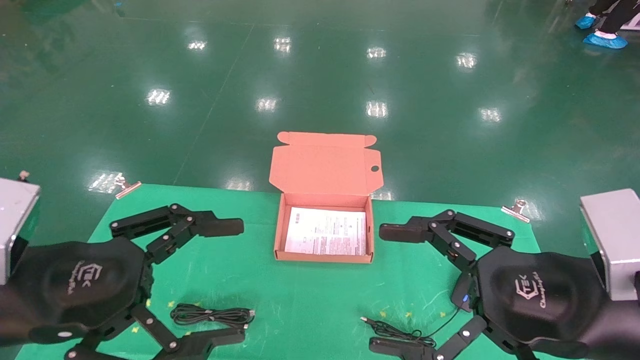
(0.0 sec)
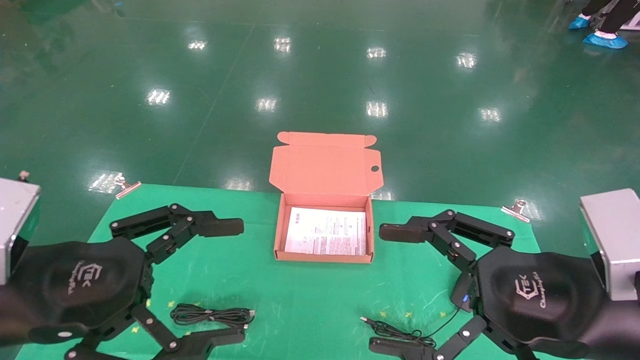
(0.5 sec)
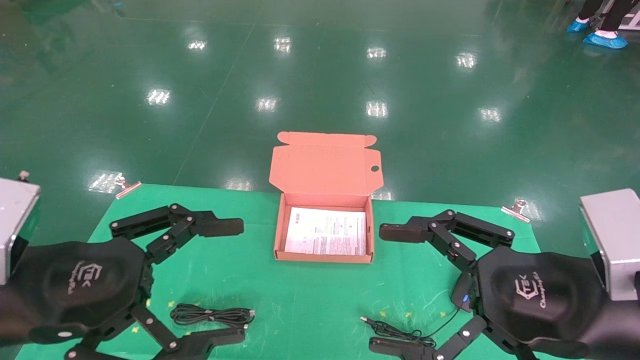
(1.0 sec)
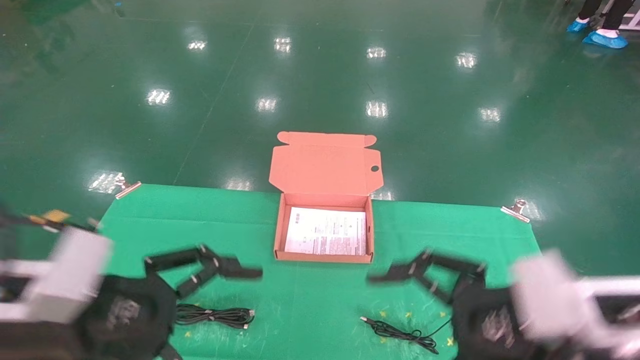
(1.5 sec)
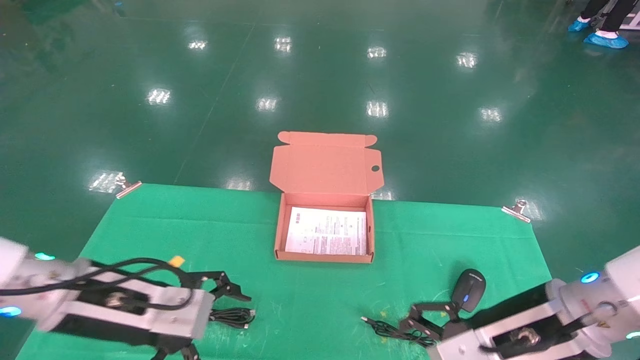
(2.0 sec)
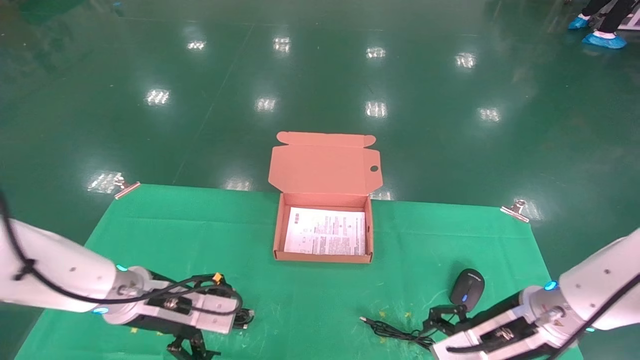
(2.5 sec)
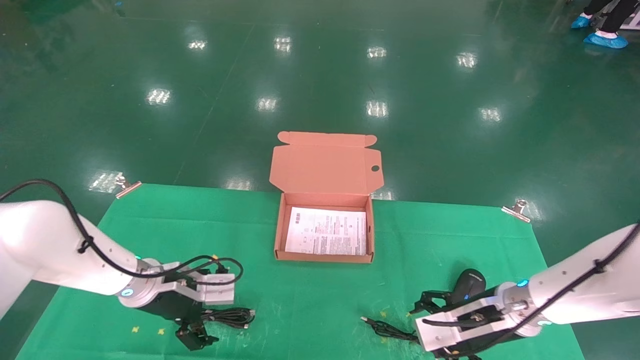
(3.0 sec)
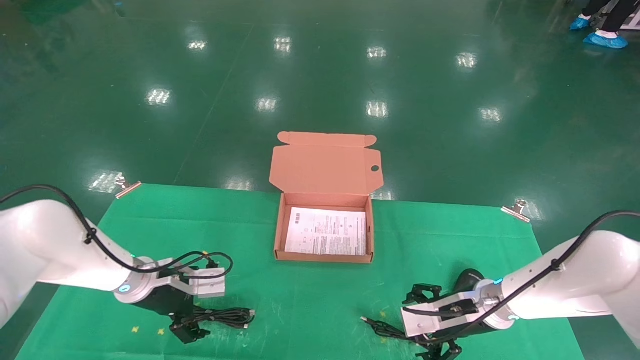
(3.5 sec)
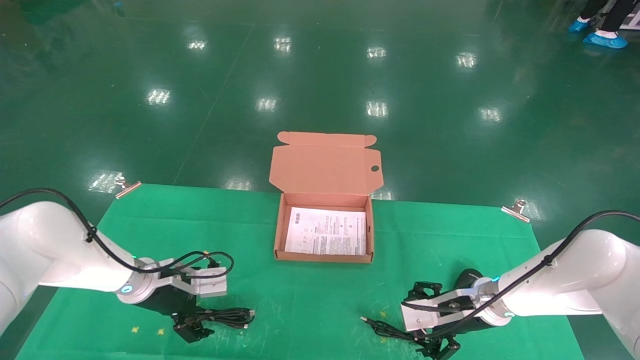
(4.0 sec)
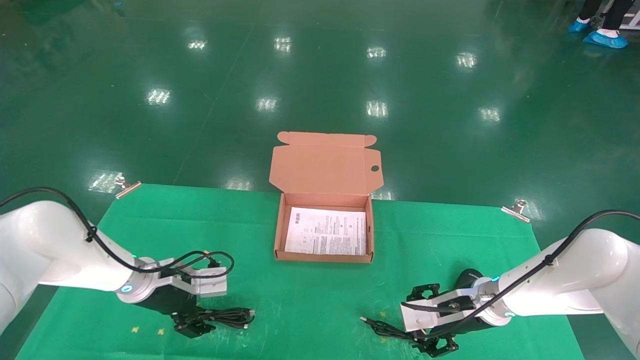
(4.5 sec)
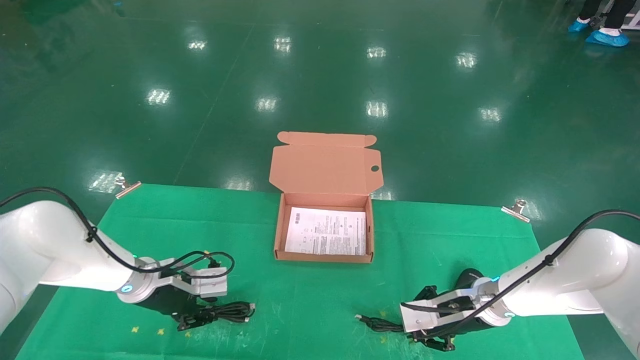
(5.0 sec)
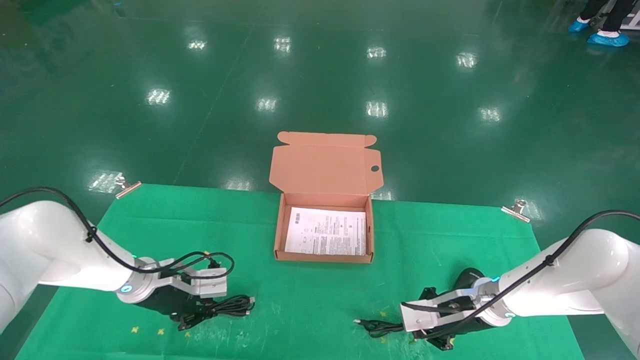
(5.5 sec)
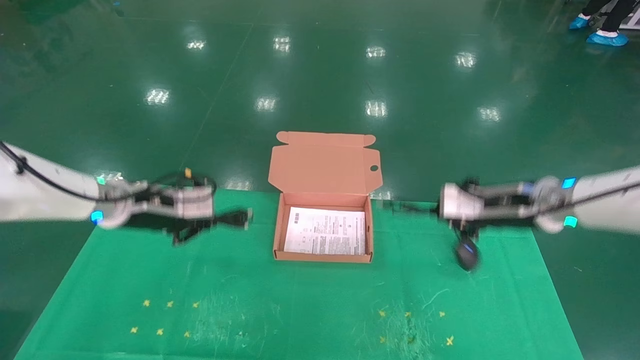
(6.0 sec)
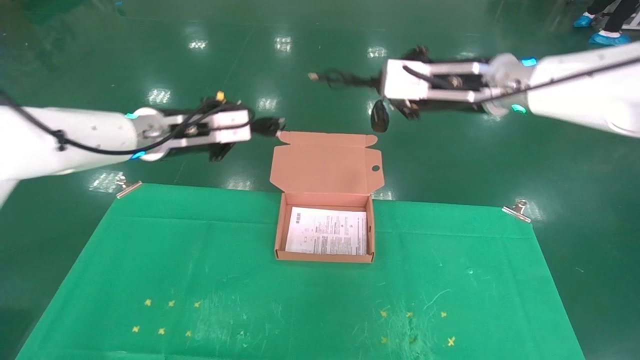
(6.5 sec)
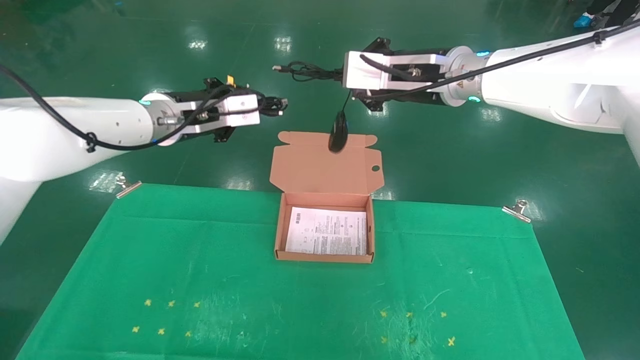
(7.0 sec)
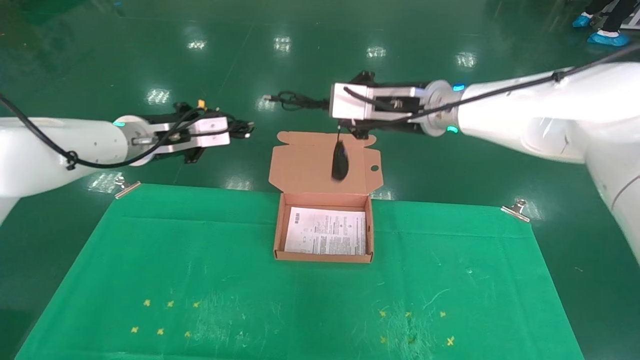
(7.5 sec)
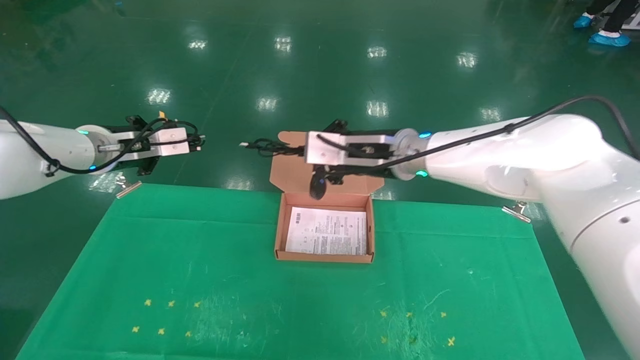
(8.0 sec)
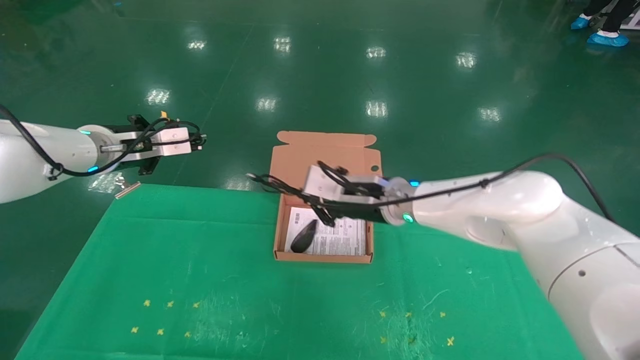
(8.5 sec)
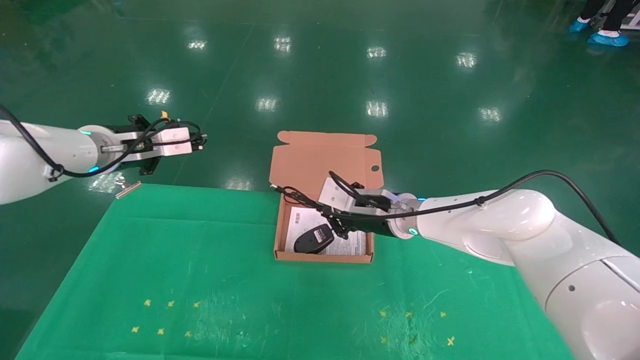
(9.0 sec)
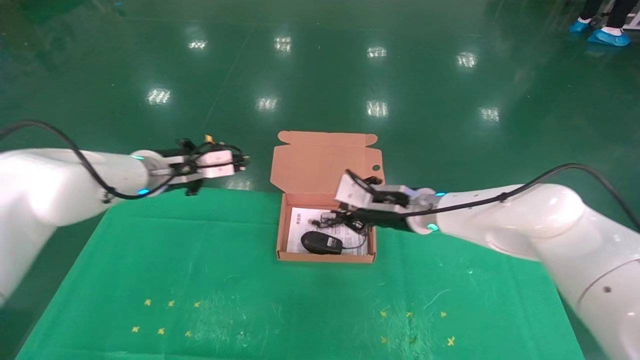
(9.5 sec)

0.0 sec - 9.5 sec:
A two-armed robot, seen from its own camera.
Task of the whole recording: grasp data cable left put into box grasp mouse right put into box.
Step, 1.0 sec - 6.0 sec: Grab and pick up both the mouse and power cord from the accessory packaging area at the same time.
0.0 sec - 2.0 sec: Both grippers move forward and downward, about 10 cm.
2.0 sec - 4.0 sec: The grippers both shift forward and downward by about 20 cm.
4.0 sec - 5.5 sec: The right gripper closes its fingers; the left gripper closes up.
5.5 sec - 7.5 sec: The right gripper shifts about 30 cm upward and to the left; the left gripper goes about 20 cm upward.
7.5 sec - 9.5 sec: The right gripper is displaced downward by roughly 15 cm. The left gripper travels downward by some 5 cm.

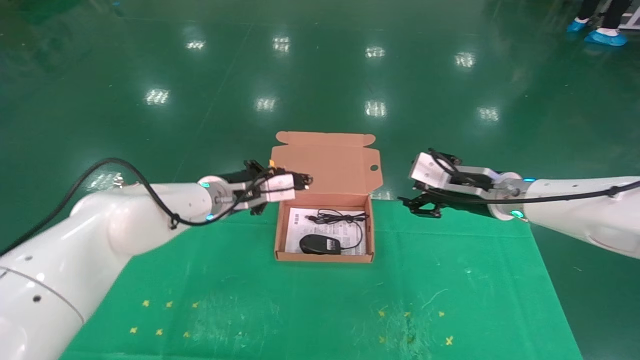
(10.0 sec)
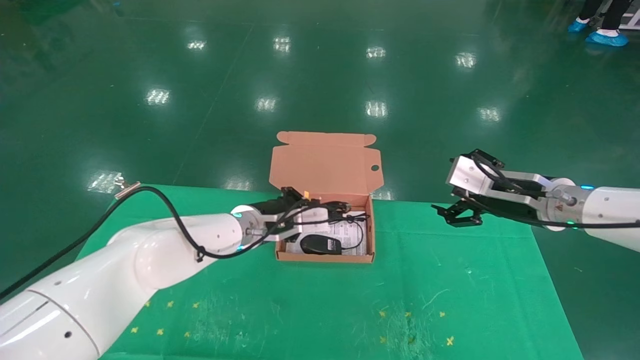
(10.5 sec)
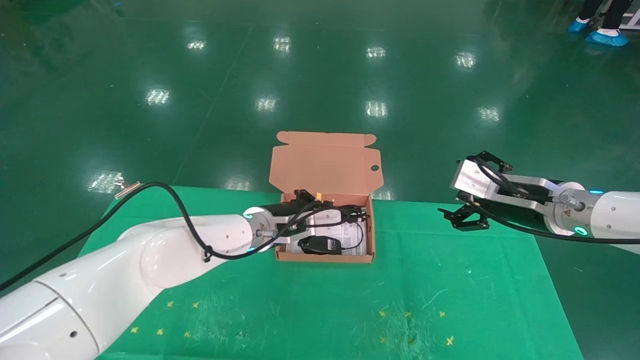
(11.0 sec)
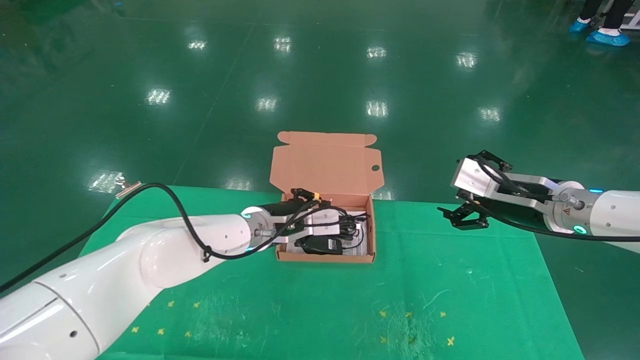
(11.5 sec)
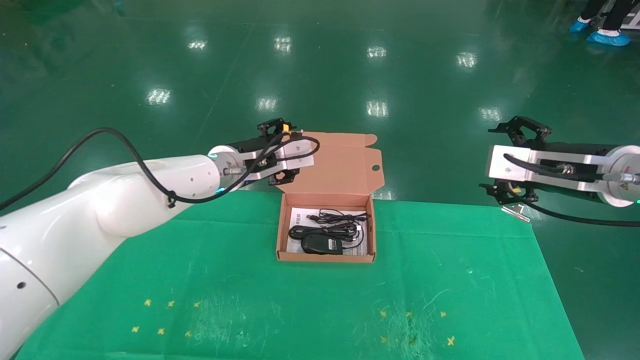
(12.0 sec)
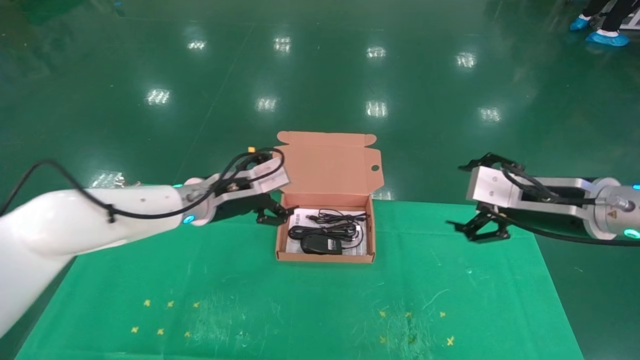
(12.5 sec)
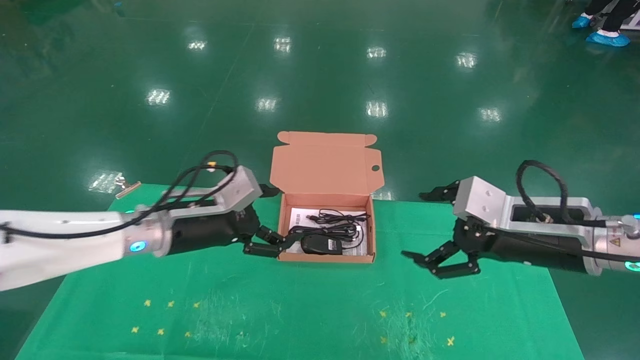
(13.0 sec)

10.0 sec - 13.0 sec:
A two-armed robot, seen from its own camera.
Task of the whole recording: grasp data cable left put into box grasp mouse right put into box.
10.0 sec - 11.5 sec: The right gripper moves backward and to the right, approximately 10 cm, and opens its fingers. The left gripper shifts about 5 cm to the right.
11.5 sec - 13.0 sec: The left gripper is displaced to the left and backward by approximately 15 cm, and opens up; the right gripper shifts about 10 cm backward.

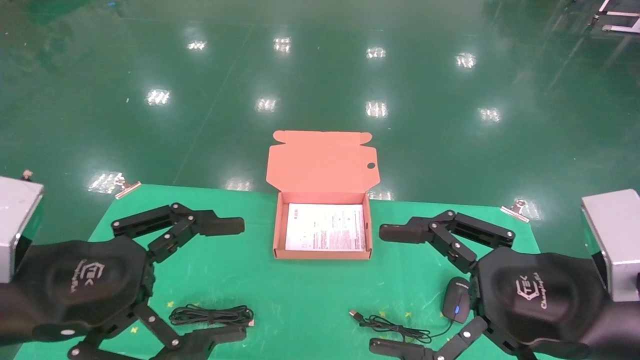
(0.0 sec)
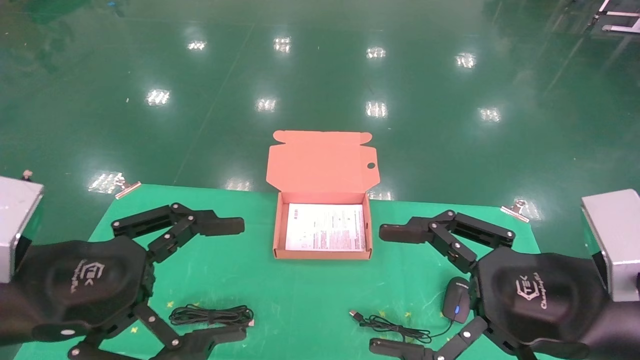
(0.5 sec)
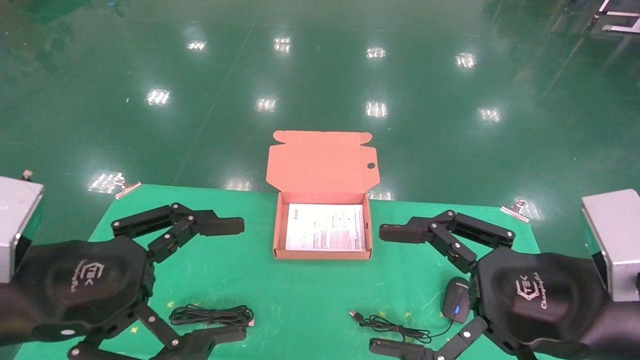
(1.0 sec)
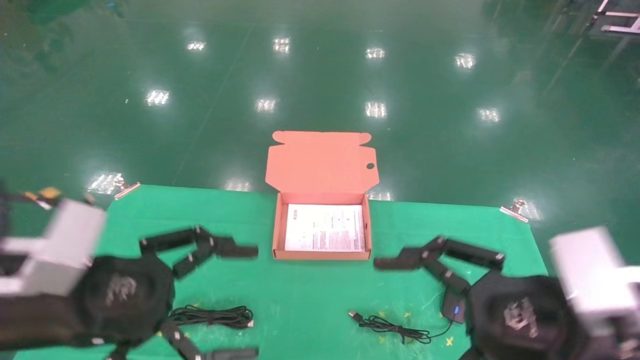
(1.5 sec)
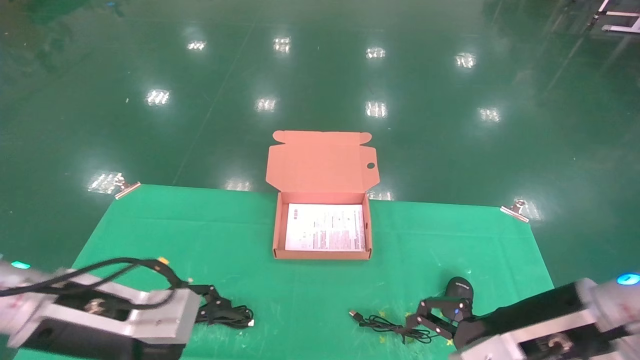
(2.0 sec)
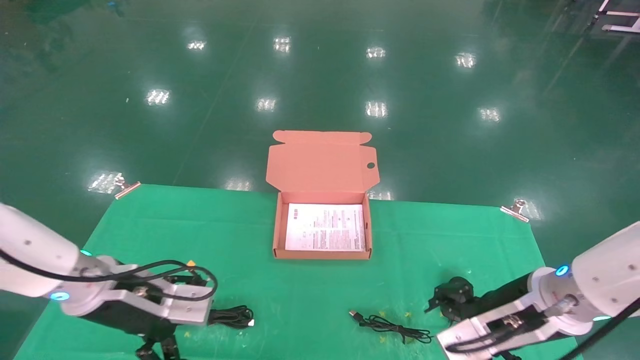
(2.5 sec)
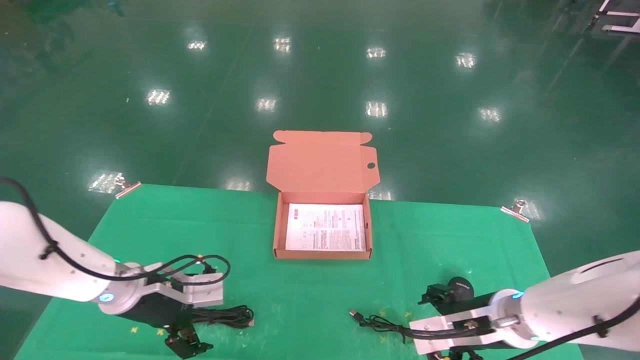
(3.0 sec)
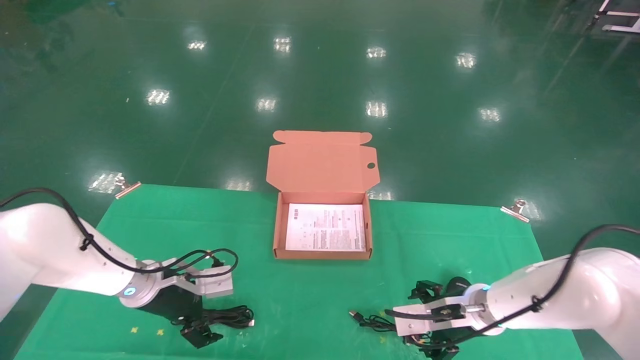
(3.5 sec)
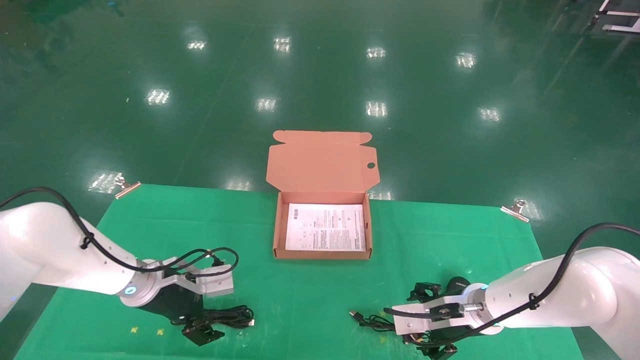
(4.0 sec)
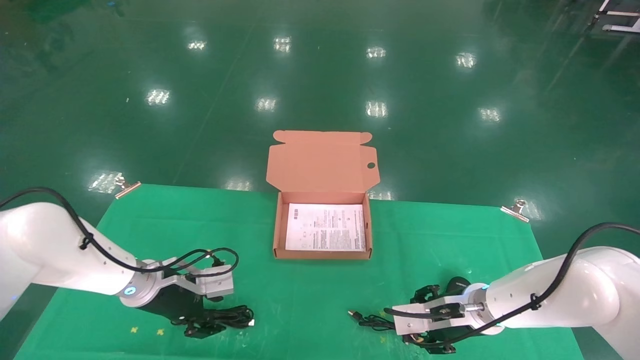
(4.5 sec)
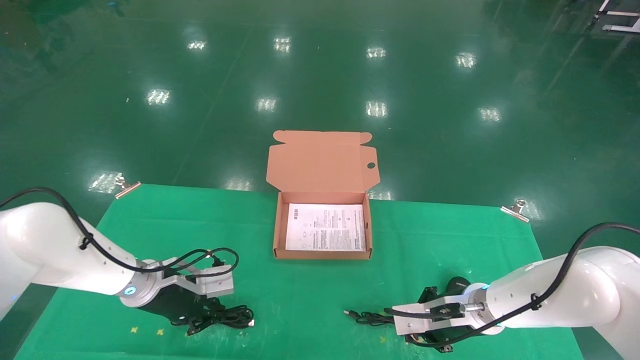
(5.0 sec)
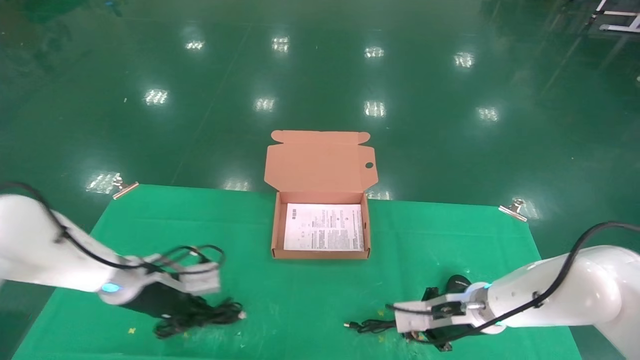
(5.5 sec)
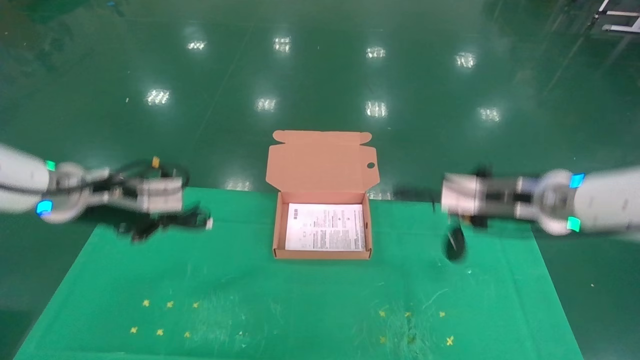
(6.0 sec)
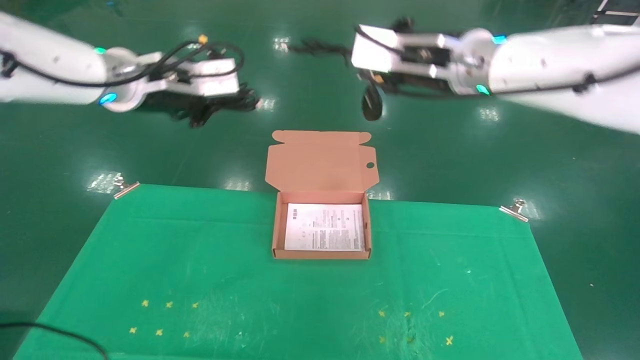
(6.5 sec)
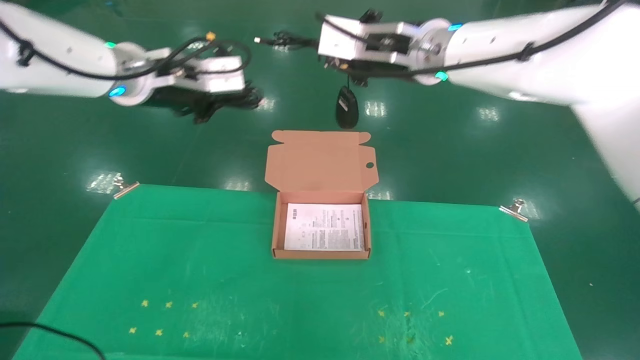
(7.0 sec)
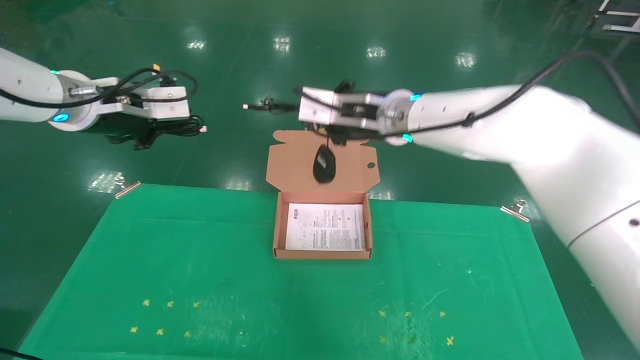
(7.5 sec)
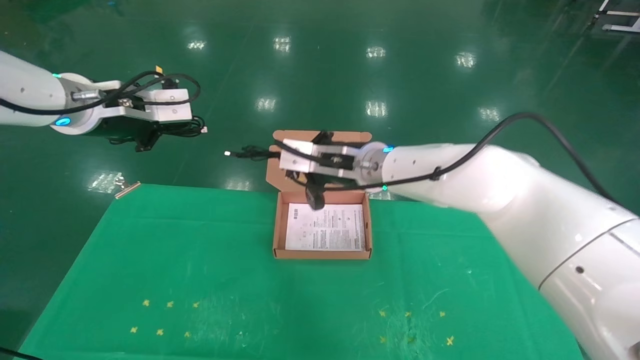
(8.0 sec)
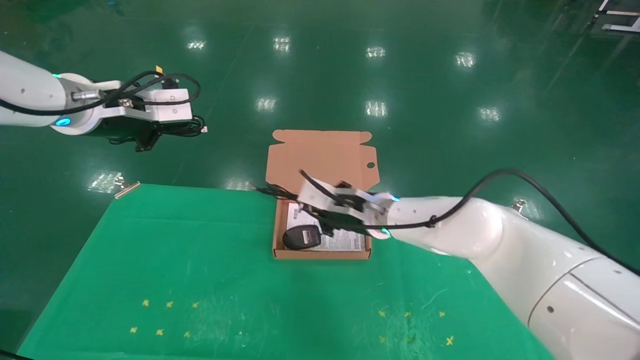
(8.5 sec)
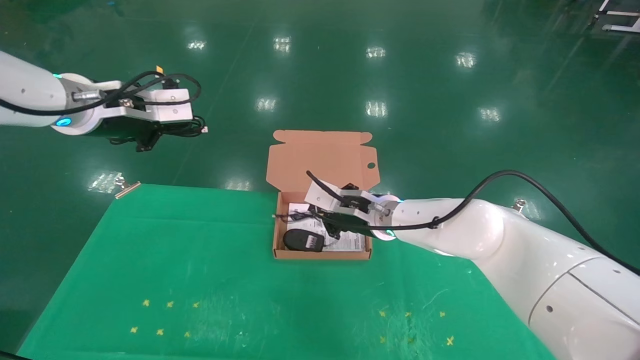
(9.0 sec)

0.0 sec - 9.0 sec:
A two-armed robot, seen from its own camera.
Task of the whole recording: grasp data cable left put into box grasp mouse right put into box.
Step, 1.5 sec - 5.5 sec: Grab and pick up both the mouse and power cord from the accessory packaging area at the same time.
0.0 sec - 2.0 sec: The right gripper ends up about 5 cm from where it was, while the left gripper is displaced forward and downward by roughly 10 cm.
2.0 sec - 4.5 sec: Both grippers travel together forward and downward, about 20 cm. The left gripper closes. The right gripper closes up.
4.5 sec - 7.0 sec: Both grippers move upward, approximately 35 cm. The right gripper closes its fingers; the left gripper closes.
7.0 sec - 9.0 sec: The right gripper travels downward by some 25 cm; the left gripper is displaced to the left by some 5 cm.
